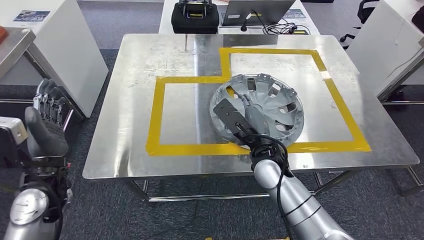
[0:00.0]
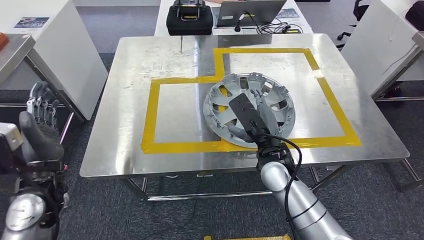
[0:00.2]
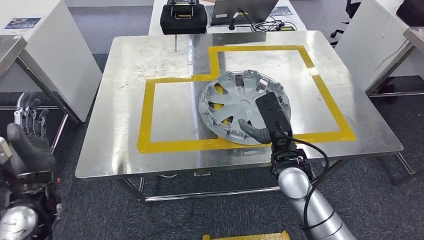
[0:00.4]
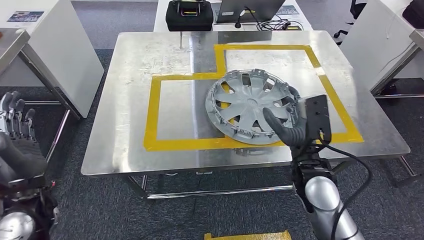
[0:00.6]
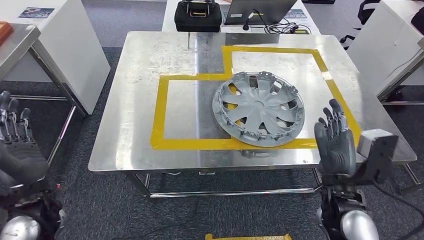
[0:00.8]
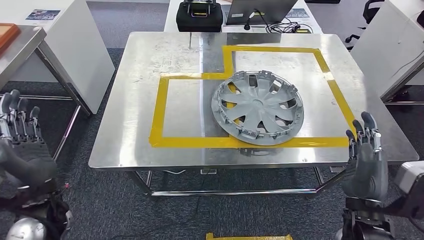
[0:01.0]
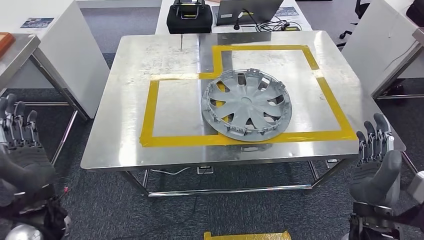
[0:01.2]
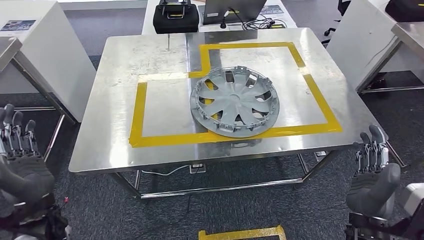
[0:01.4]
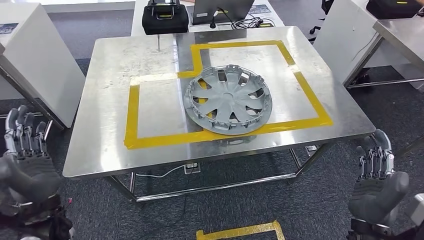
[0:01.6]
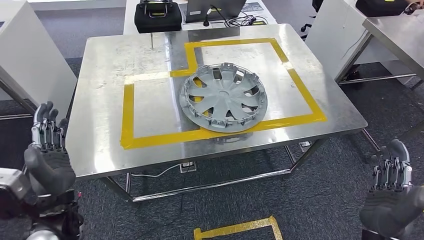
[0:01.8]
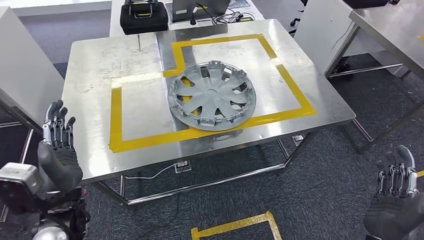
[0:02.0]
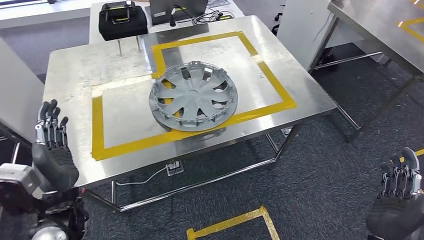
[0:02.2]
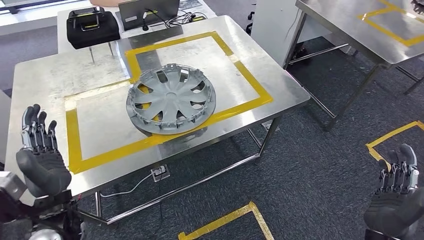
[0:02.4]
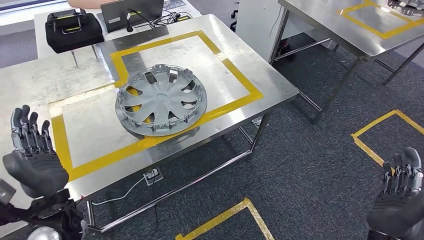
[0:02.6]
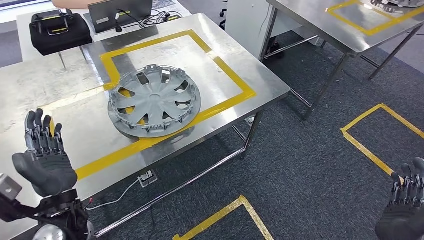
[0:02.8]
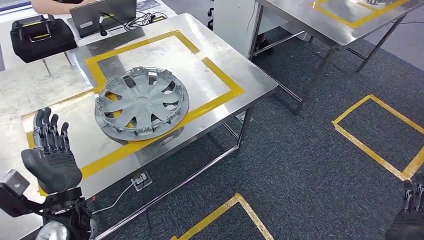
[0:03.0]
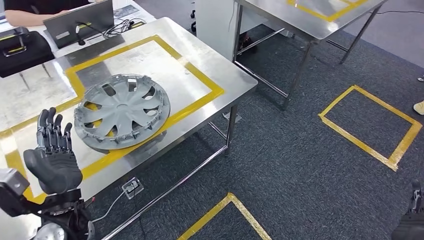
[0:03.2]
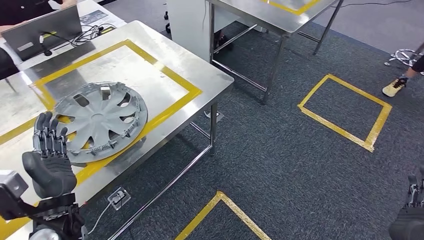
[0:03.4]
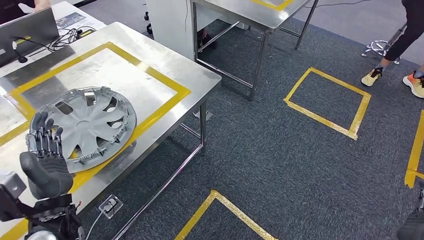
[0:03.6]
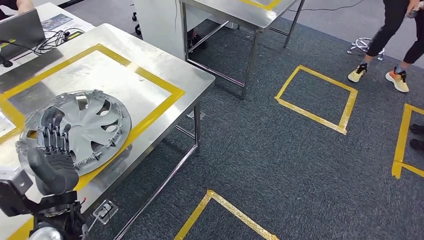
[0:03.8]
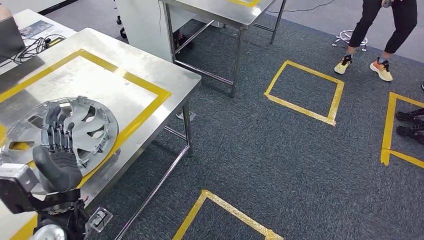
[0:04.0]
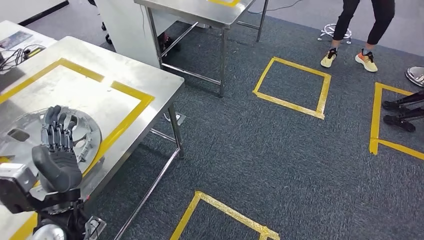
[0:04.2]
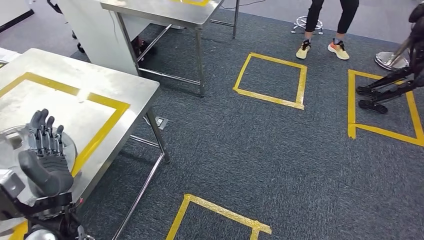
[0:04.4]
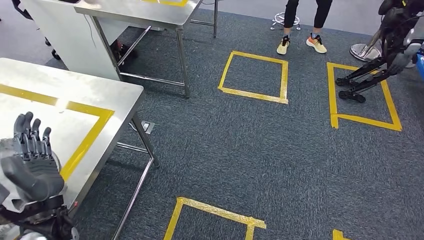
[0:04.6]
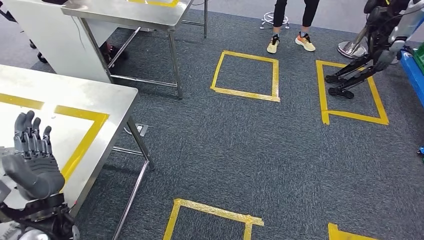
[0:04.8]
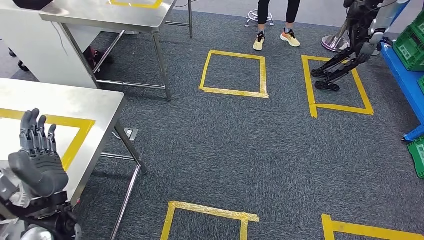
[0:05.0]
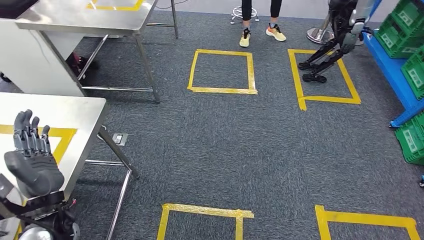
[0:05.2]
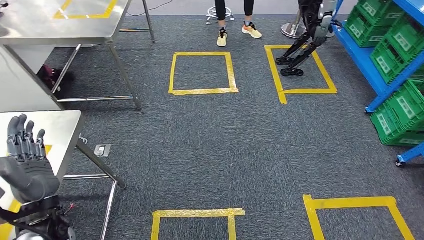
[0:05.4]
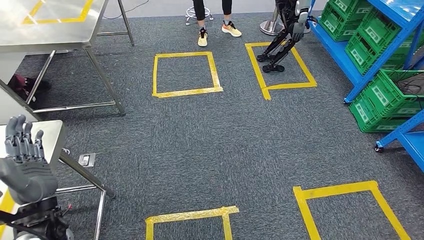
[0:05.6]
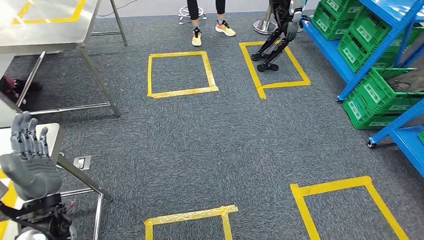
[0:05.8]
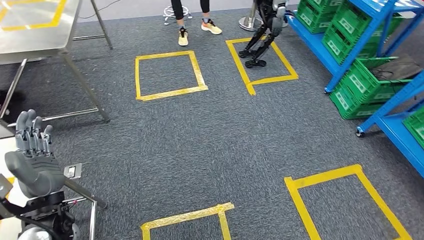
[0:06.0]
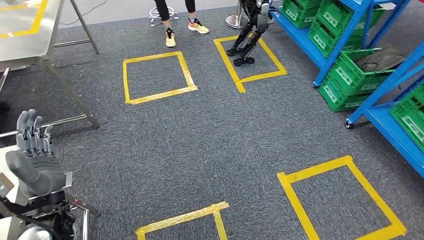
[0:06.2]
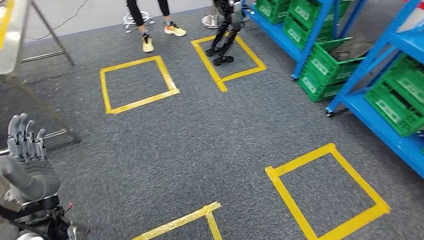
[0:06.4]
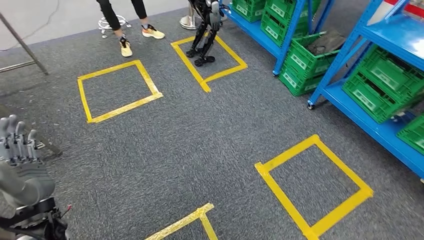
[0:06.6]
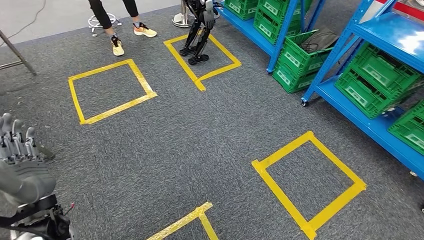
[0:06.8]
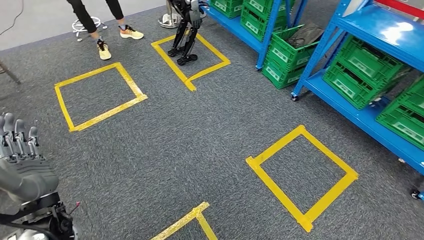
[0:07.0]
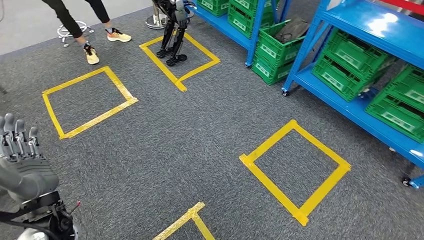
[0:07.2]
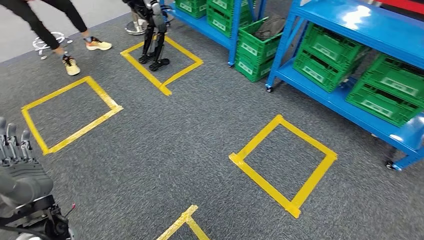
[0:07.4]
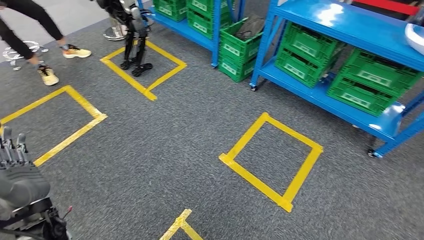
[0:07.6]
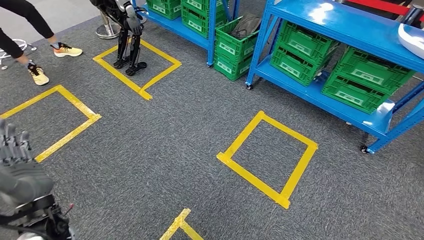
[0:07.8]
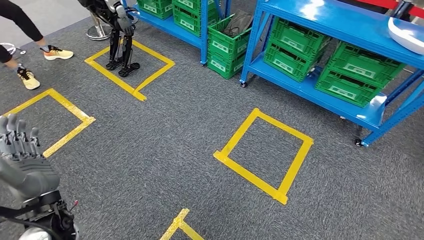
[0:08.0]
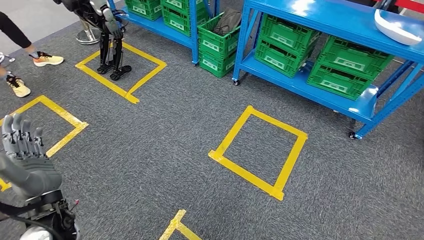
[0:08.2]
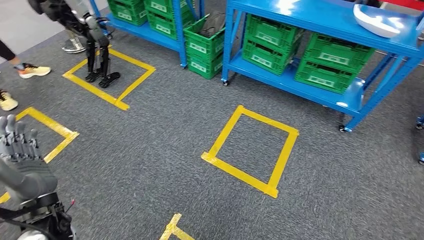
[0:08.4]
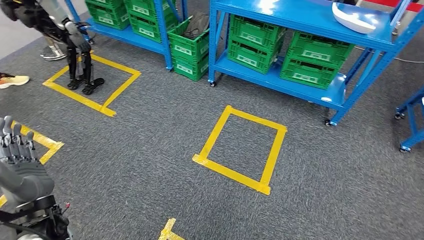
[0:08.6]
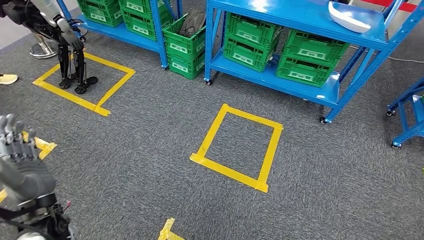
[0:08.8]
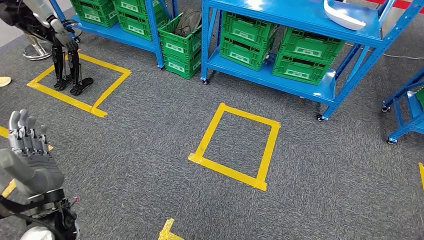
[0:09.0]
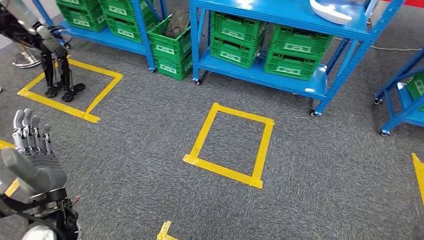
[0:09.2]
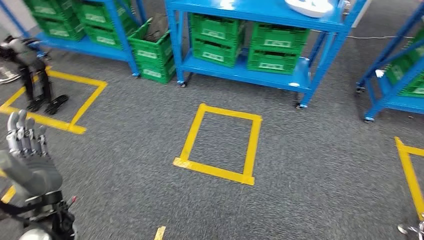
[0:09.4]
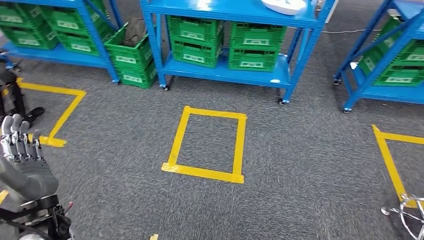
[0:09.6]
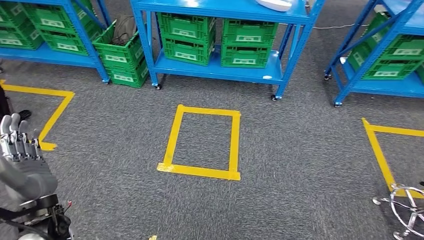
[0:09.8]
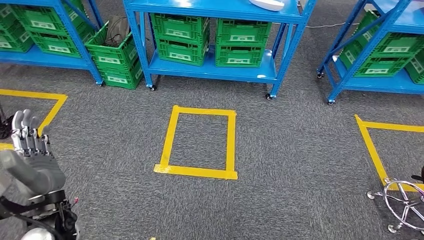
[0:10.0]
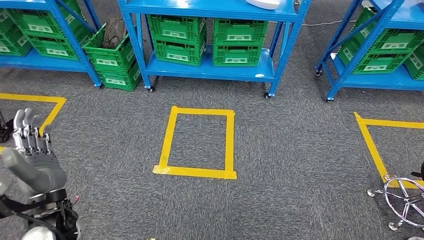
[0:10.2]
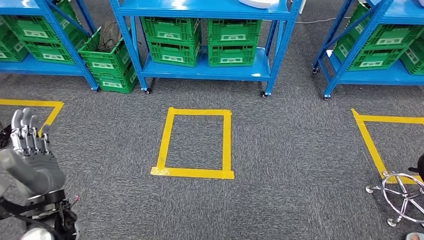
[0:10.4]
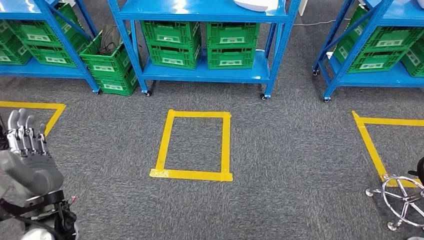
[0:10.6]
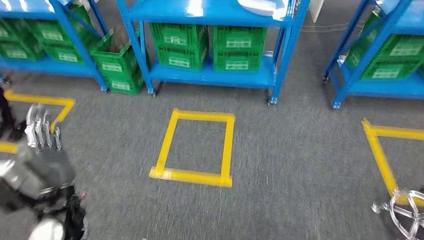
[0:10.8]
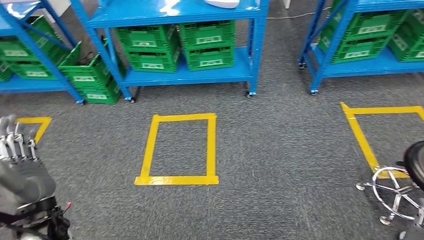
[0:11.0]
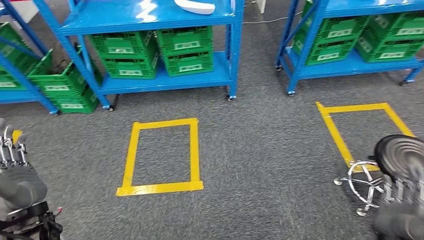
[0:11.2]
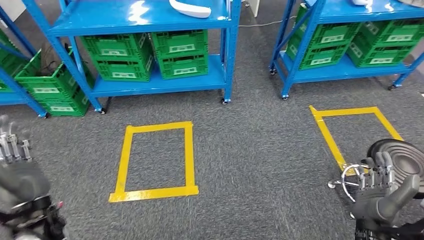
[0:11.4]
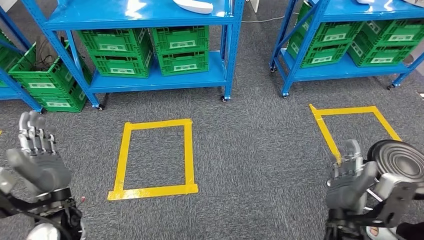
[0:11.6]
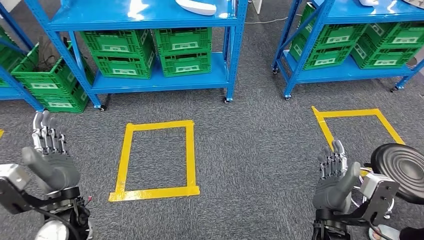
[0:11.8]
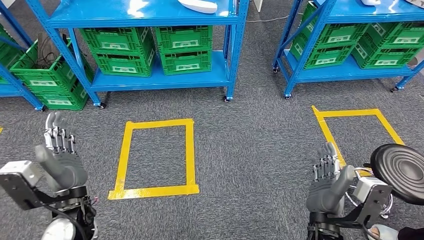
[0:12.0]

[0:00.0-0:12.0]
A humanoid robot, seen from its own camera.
Step, 0:00.0 to 0:01.4: Insert the small parts into the corresponding holes on the workbench.

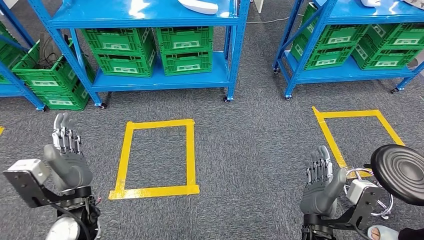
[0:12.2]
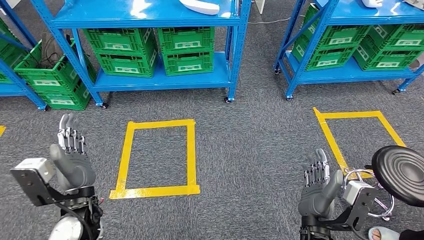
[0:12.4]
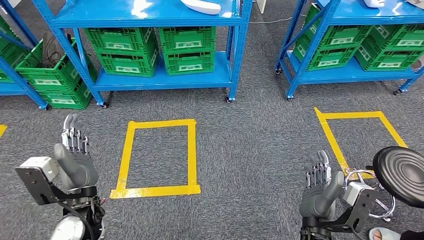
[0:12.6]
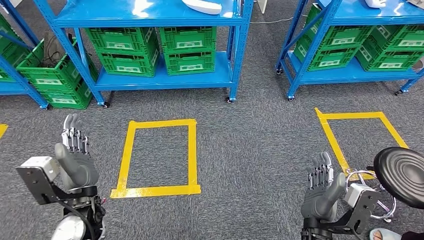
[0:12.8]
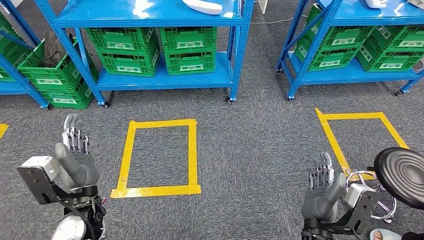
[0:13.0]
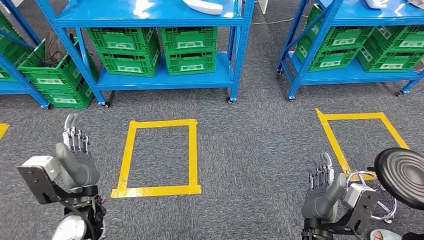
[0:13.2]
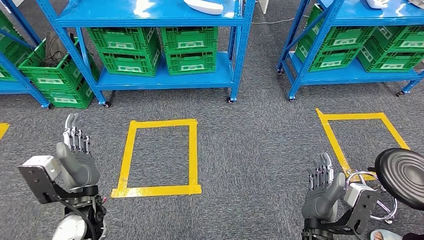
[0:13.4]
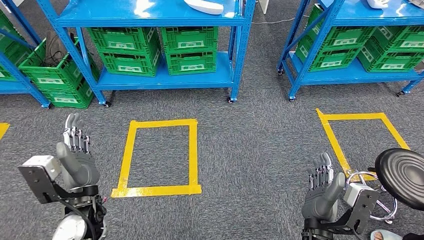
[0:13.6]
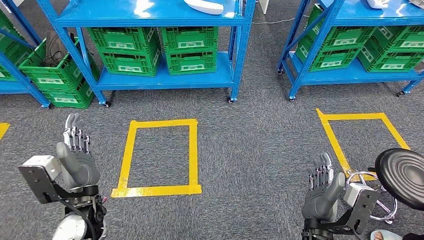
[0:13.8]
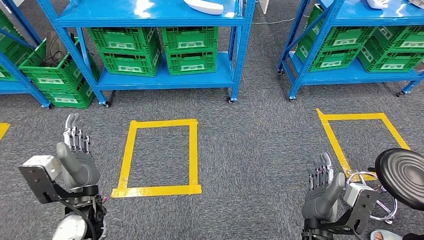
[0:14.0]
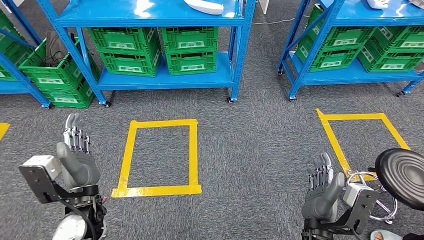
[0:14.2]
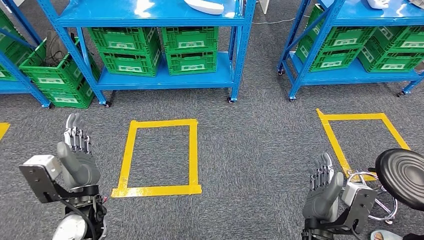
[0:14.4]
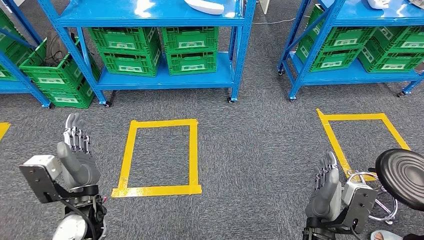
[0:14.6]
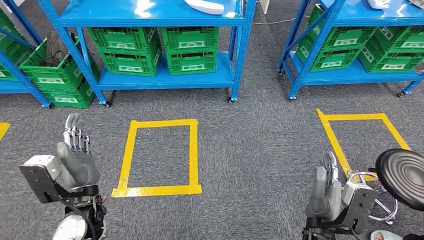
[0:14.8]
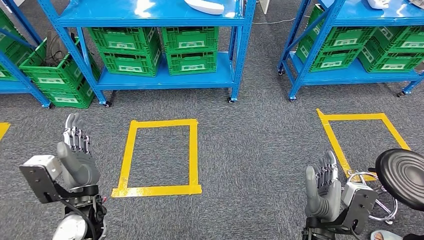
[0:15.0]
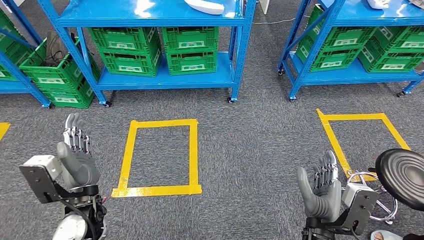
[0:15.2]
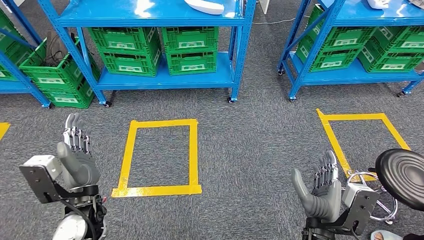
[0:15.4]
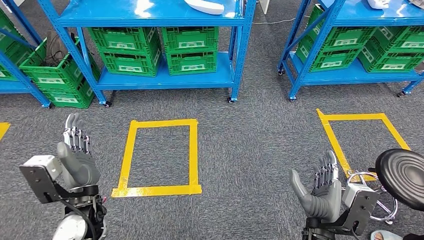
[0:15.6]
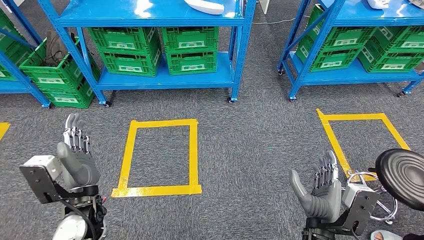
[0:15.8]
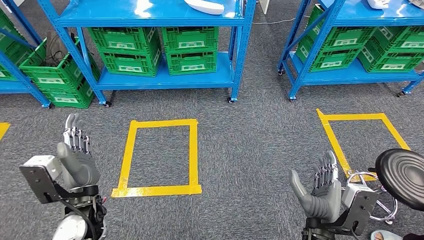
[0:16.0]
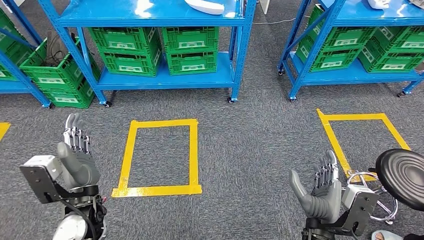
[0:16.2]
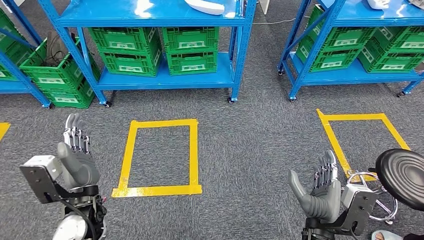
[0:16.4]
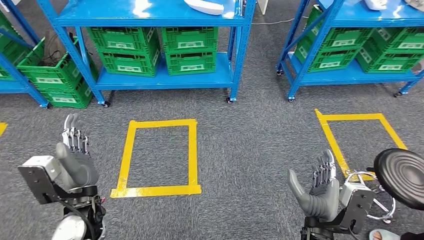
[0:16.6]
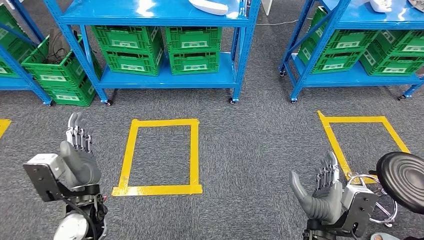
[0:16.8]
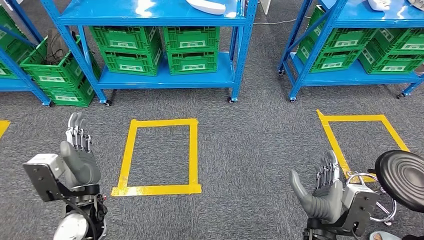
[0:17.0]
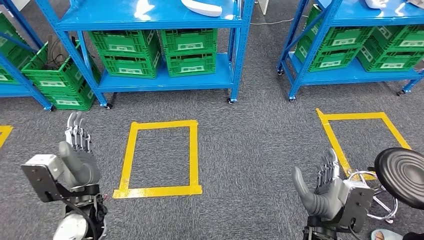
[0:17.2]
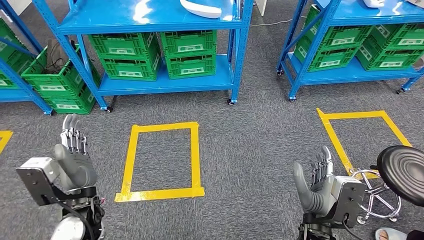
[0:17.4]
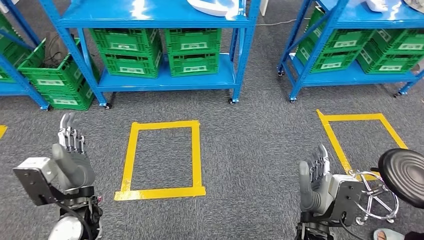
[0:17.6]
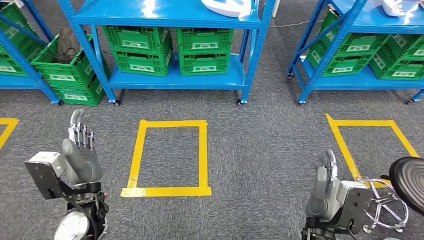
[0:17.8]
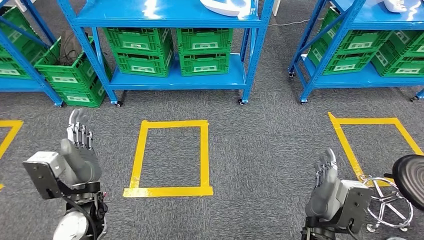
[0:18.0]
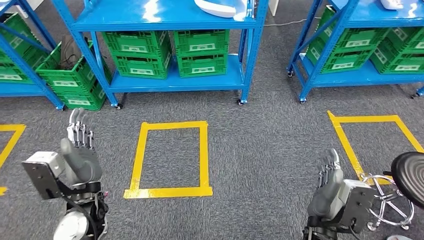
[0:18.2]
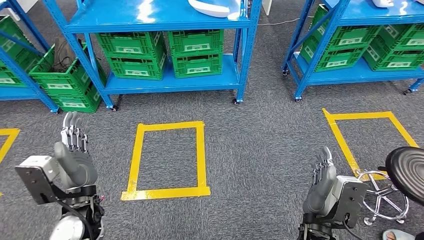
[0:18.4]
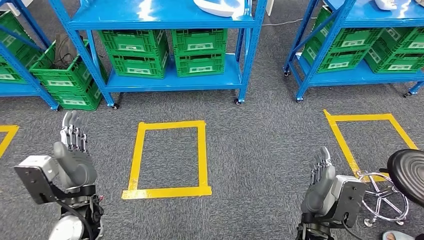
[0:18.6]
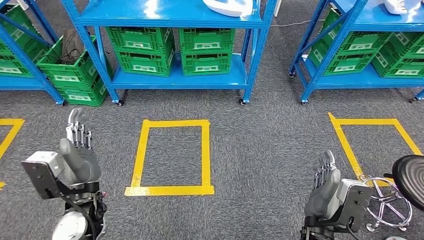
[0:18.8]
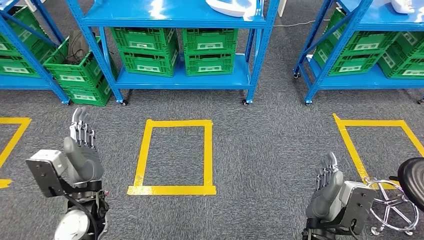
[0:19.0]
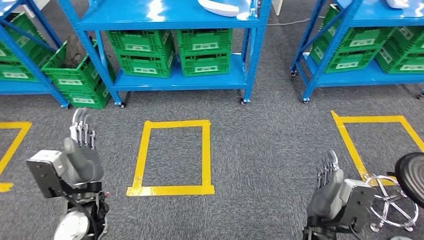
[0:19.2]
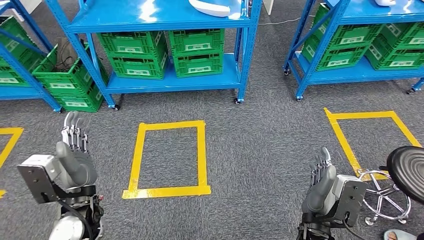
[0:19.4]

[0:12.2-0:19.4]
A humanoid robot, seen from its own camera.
0:13.6 to 0:15.0: The hands move only a little.
0:15.0 to 0:16.6: Neither hand changes place.
